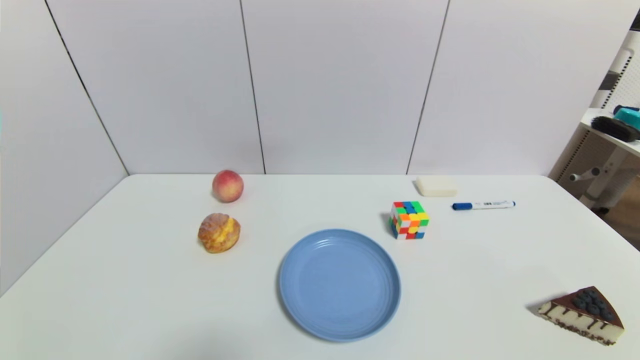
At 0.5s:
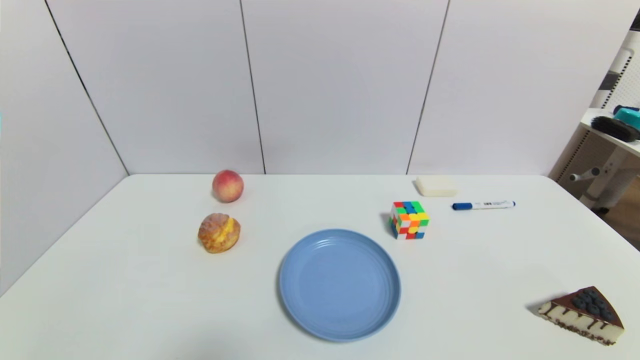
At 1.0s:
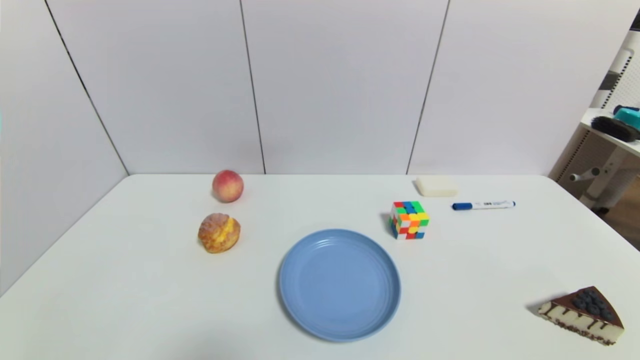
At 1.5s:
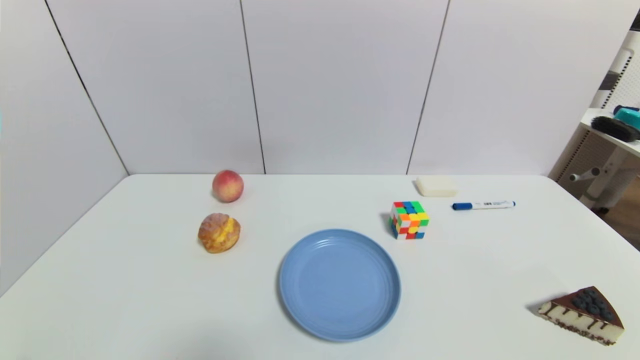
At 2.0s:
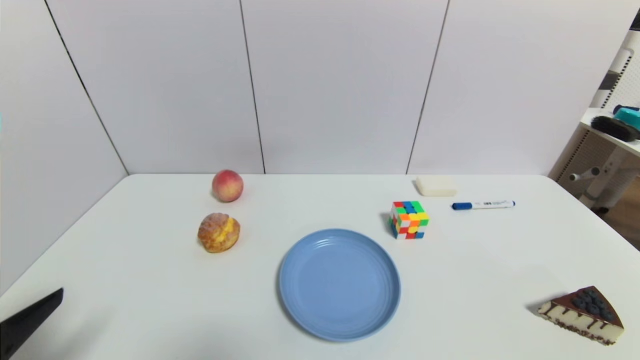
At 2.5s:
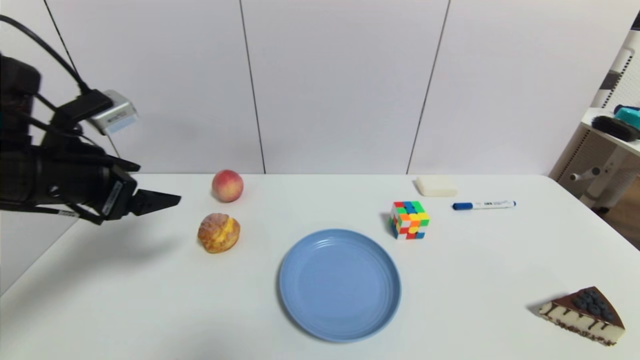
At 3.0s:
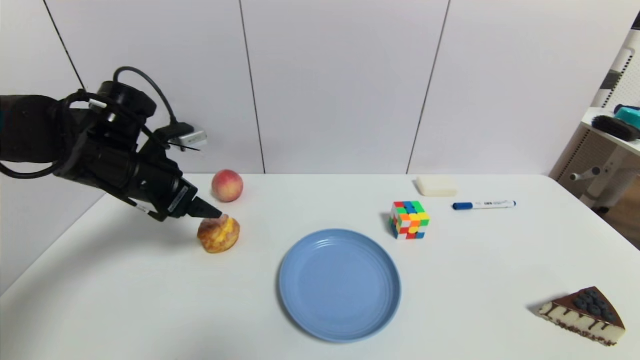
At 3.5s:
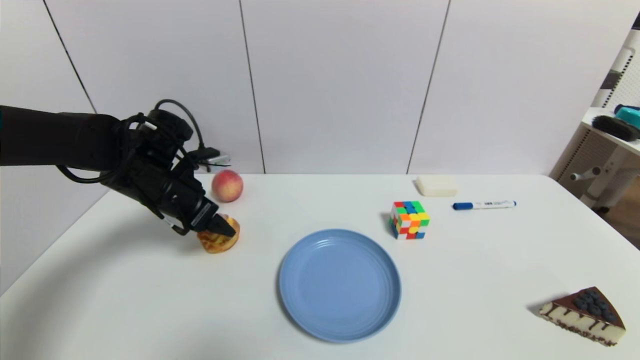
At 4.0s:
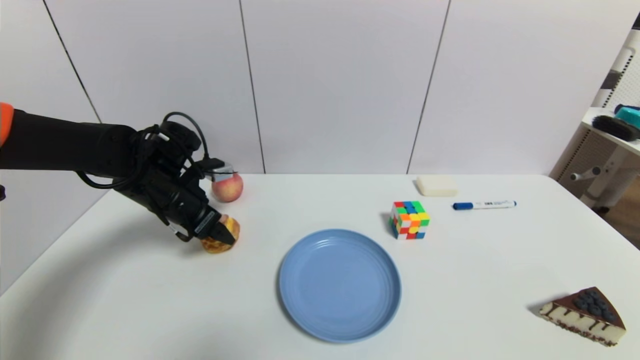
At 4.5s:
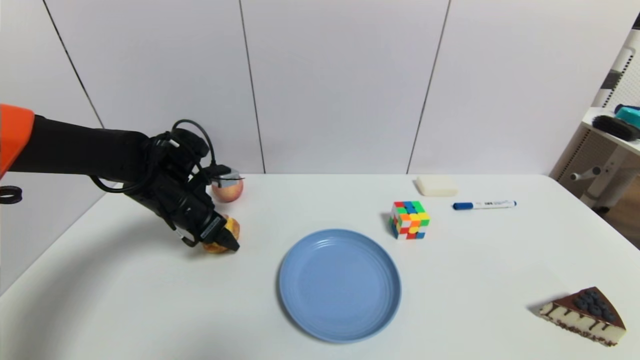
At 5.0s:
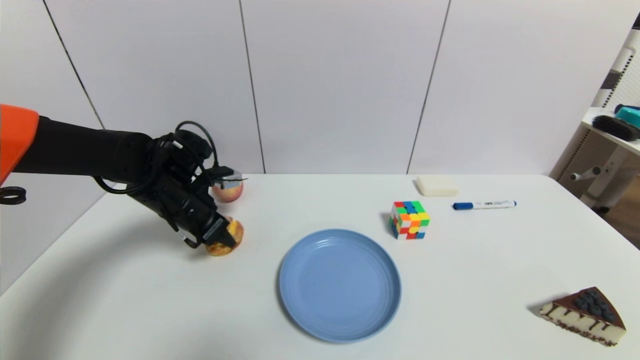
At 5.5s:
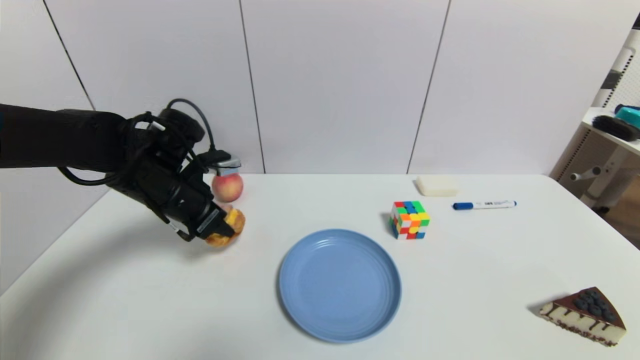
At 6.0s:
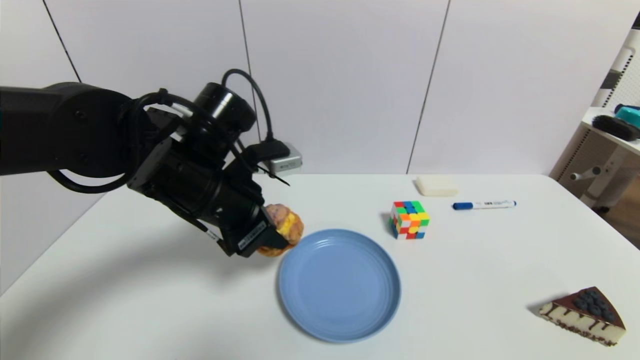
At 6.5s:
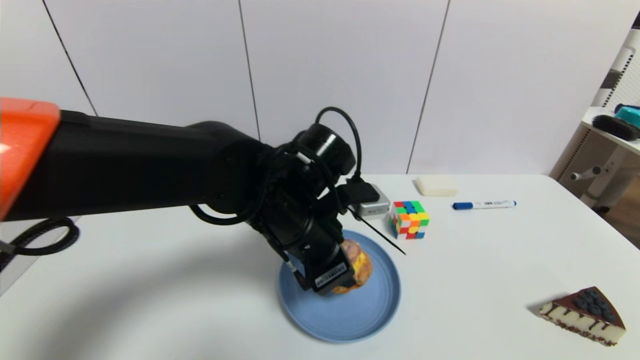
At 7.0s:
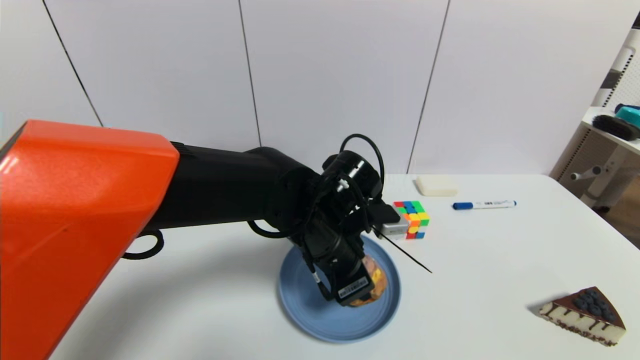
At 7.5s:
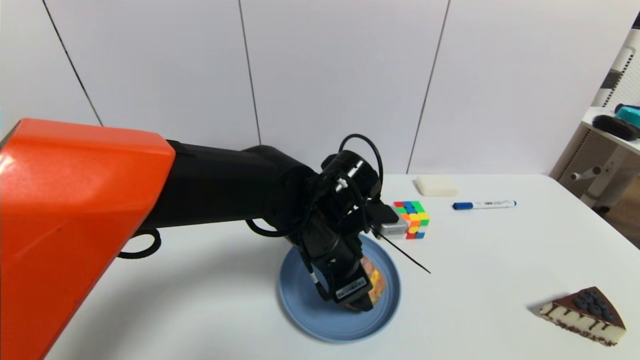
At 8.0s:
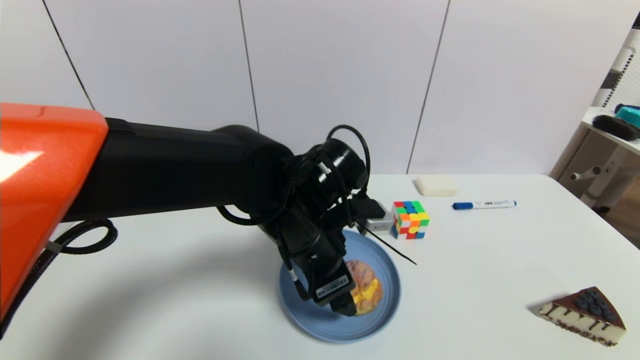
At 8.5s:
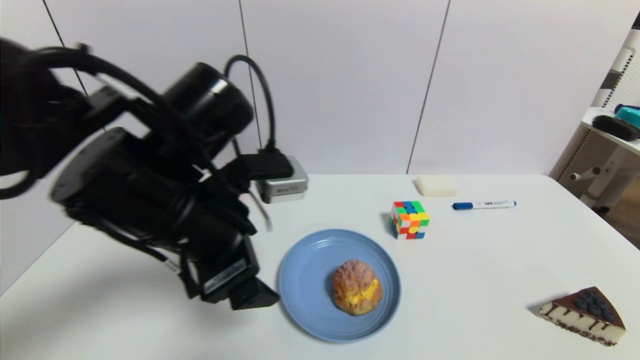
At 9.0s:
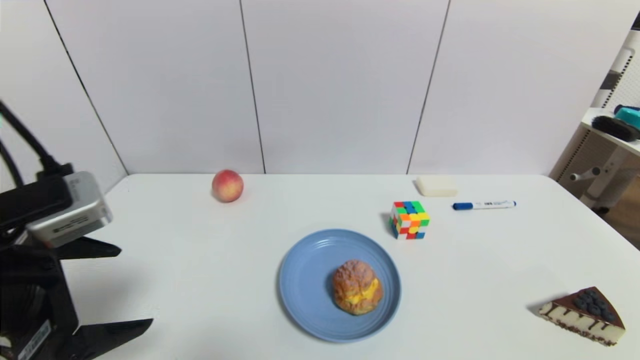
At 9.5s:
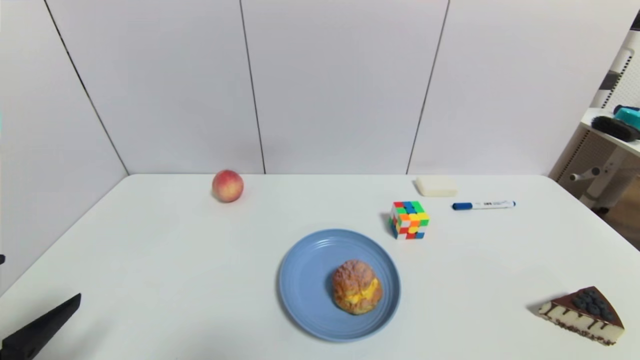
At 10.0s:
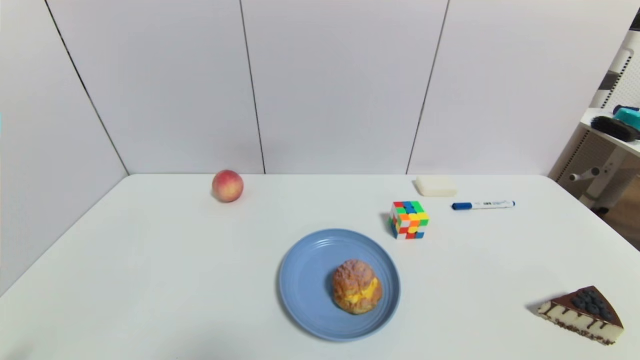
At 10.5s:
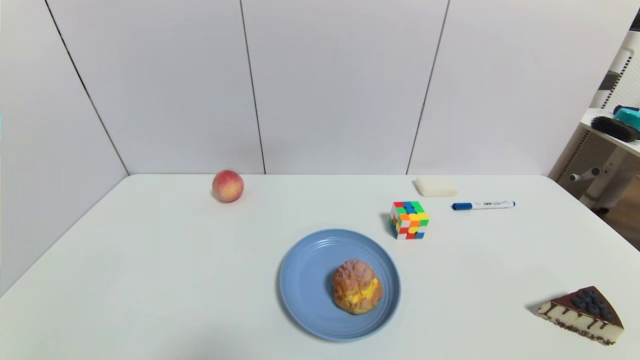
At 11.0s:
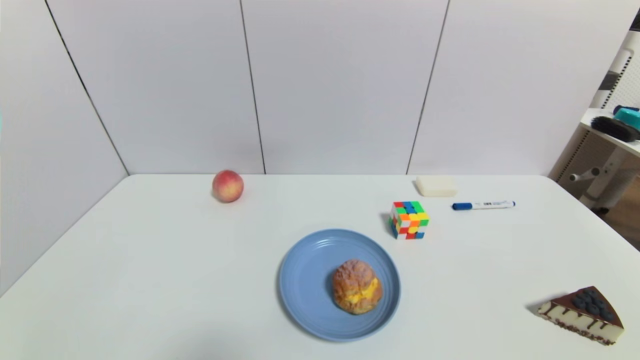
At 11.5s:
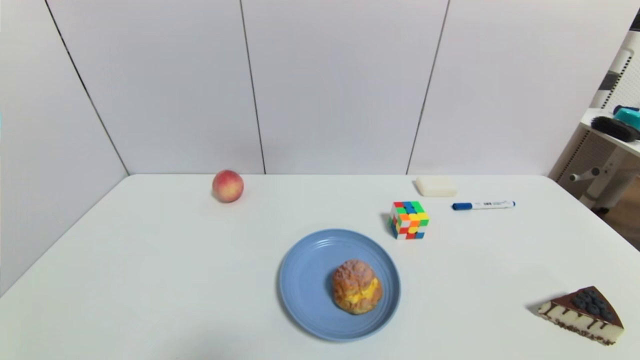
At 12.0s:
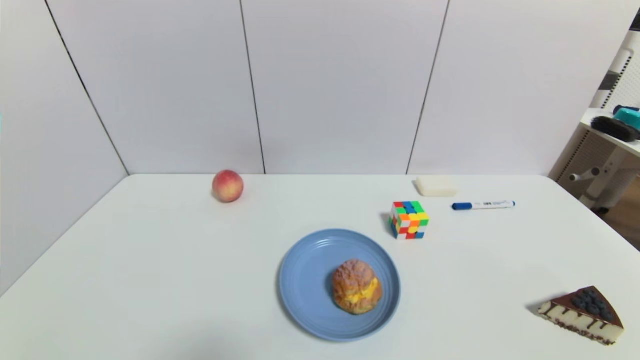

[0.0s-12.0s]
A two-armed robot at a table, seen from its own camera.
Task of the whole recording: use a gripper to pick the target object and place on the blue plate.
0.0s to 2.0s: The left gripper heads upward and forward, covering approximately 15 cm.
2.0s to 4.0s: The left gripper goes approximately 30 cm forward.
4.0s to 6.0s: The left gripper shifts about 15 cm to the right, backward and upward, and closes up.
6.0s to 8.0s: The left gripper shifts approximately 10 cm to the right, and opens its fingers.
8.0s to 10.0s: The left gripper is displaced to the left and backward by some 40 cm.
